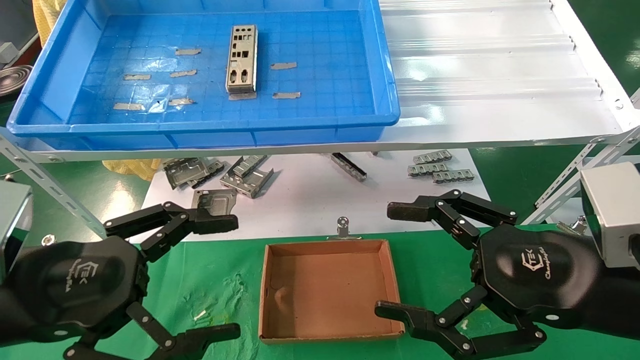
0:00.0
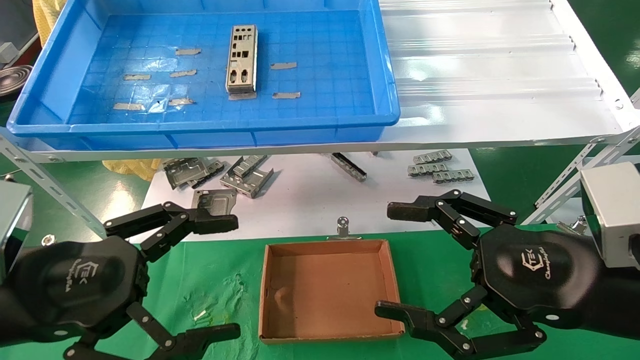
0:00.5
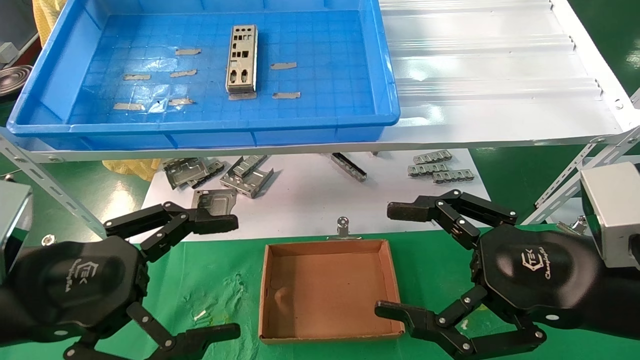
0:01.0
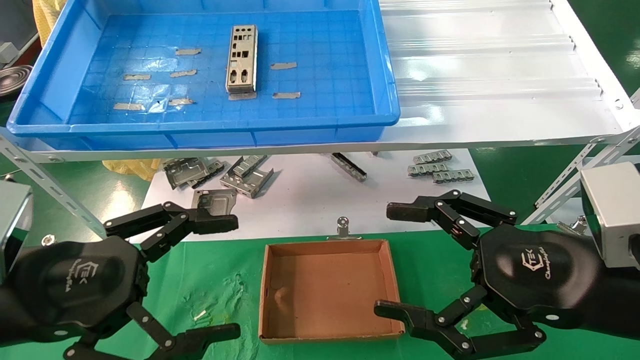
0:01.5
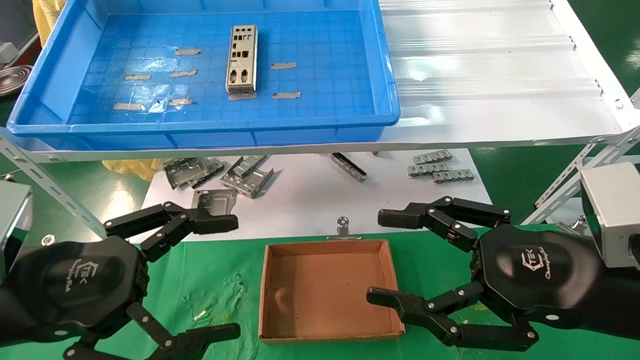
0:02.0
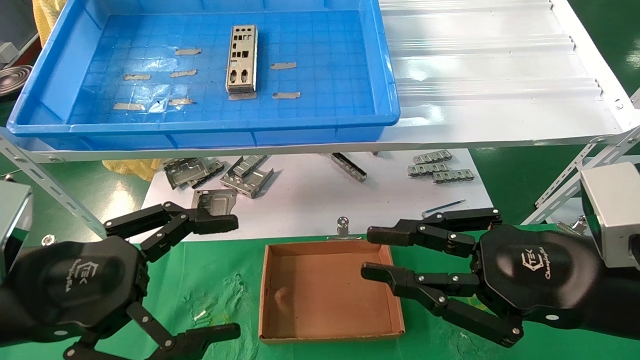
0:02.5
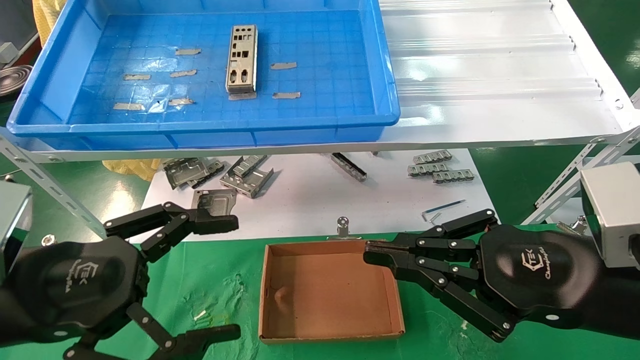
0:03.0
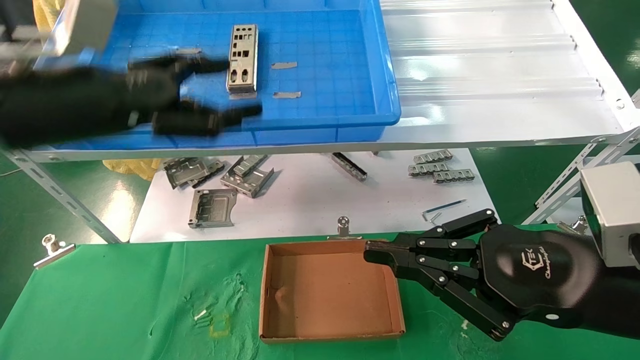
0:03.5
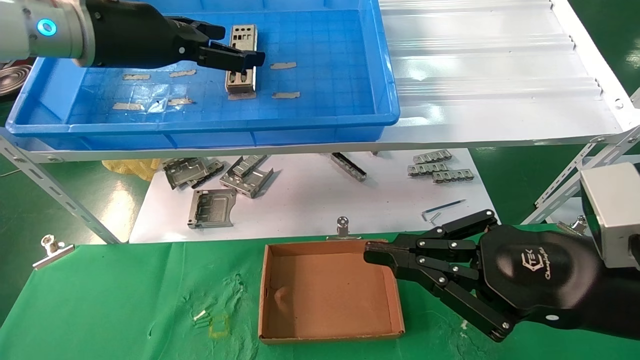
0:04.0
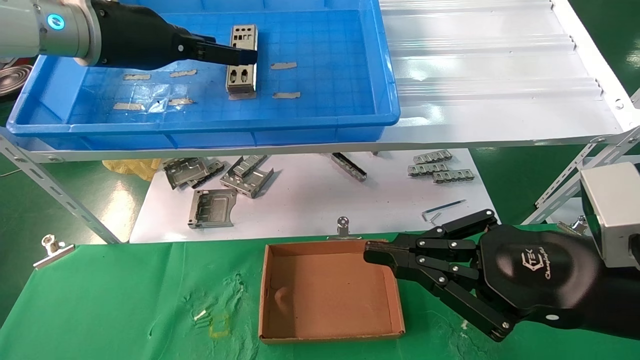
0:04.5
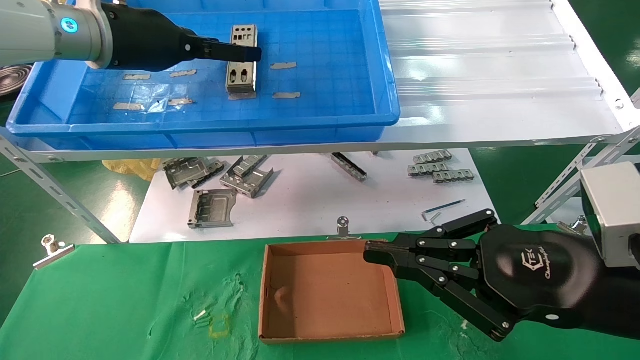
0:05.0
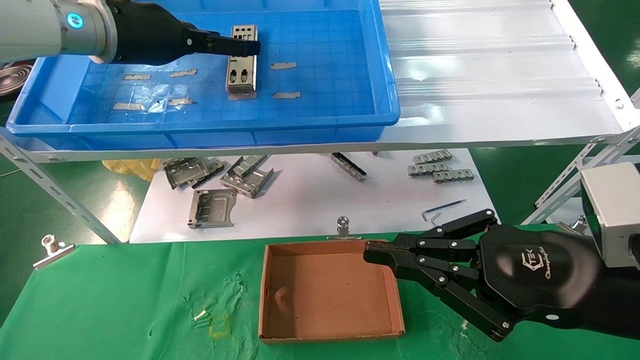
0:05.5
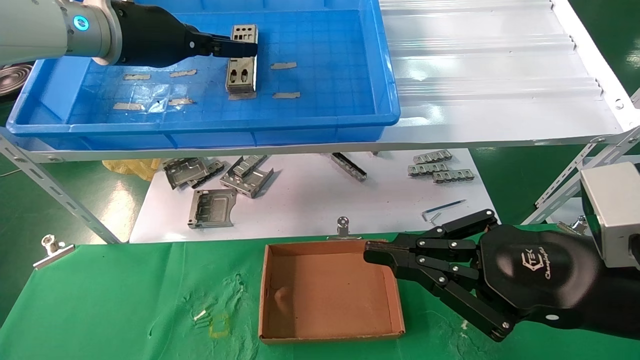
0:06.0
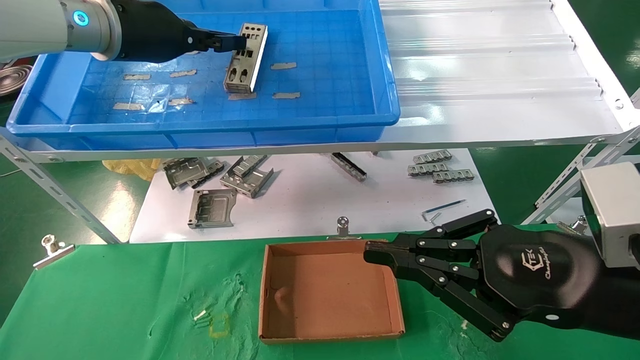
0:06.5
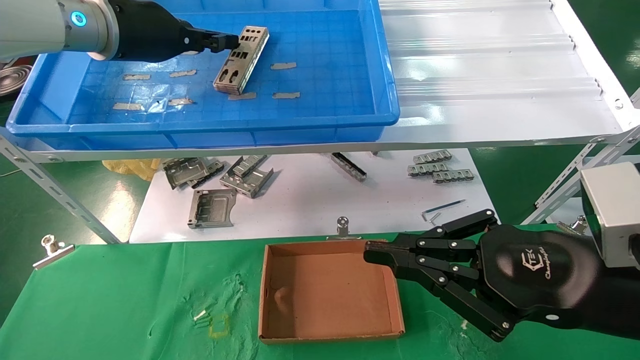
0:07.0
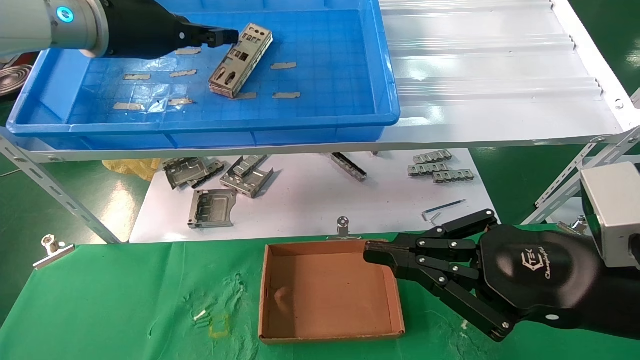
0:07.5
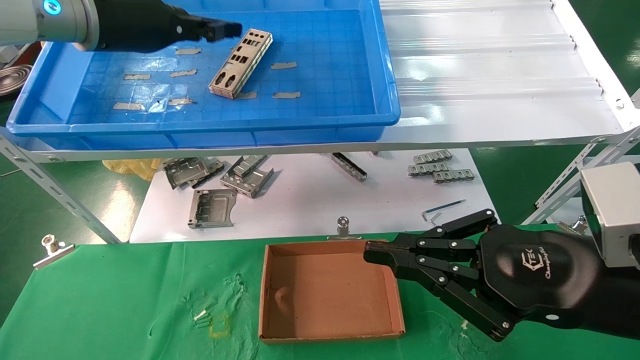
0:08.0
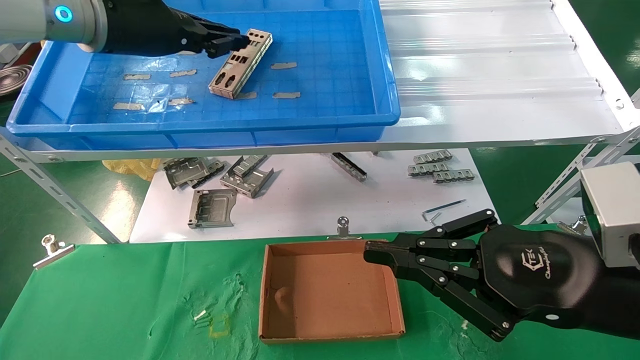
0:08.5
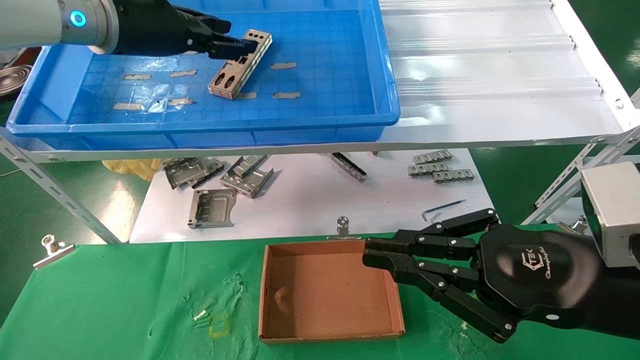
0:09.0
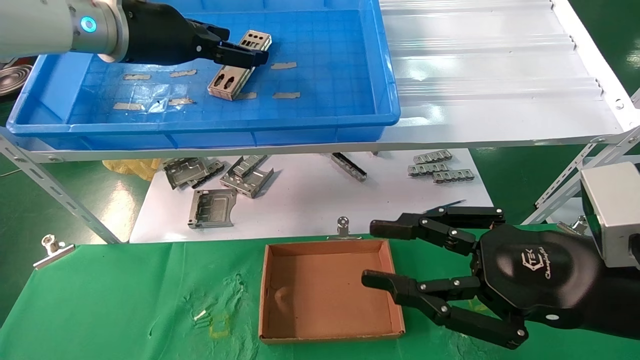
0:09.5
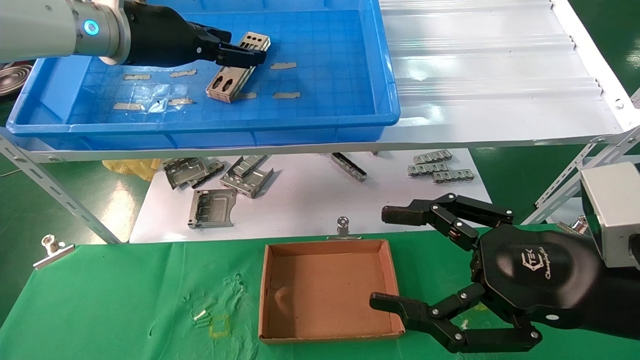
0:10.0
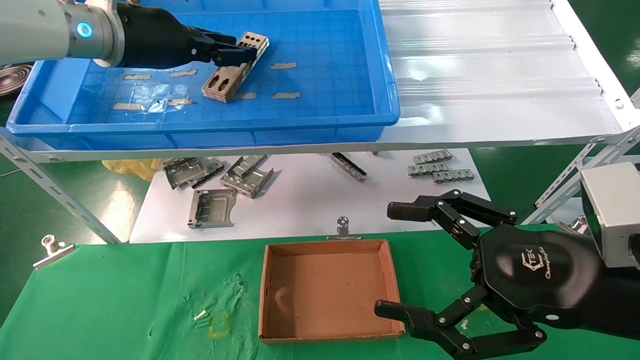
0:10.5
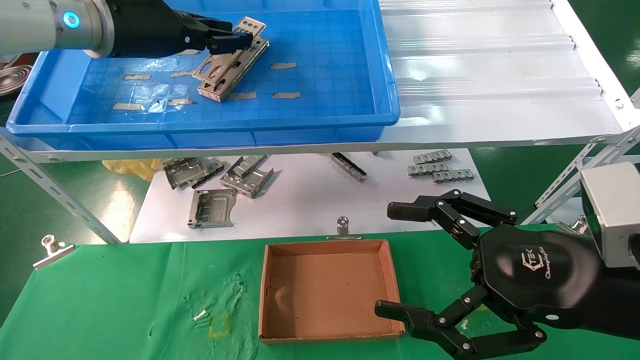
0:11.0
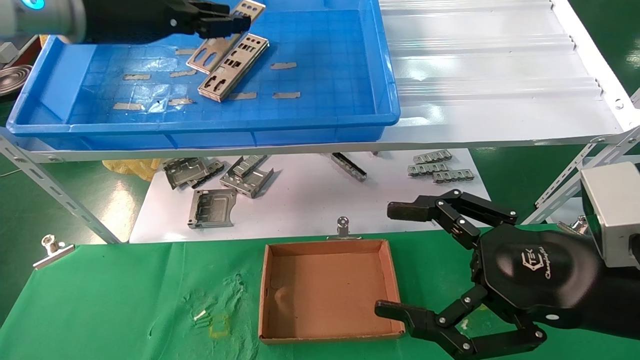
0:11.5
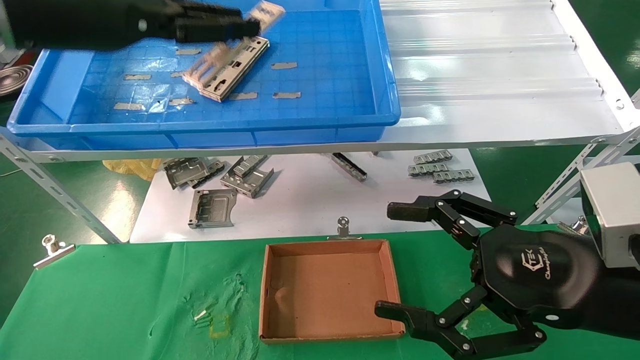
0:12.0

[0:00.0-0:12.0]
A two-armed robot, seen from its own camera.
Task of the whole recording: pick up the parts on the tray and put them in the cardboard box.
Step, 0:04.0 to 0:10.5: Pick up the IO bracket from the container box.
0:00.0 to 0:02.0: Both grippers stay about where they are.
0:02.0 to 0:04.0: The right gripper closes. The left gripper moves upward and forward, roughly 30 cm.
0:04.0 to 0:06.0: The left gripper closes up.
0:06.0 to 0:08.0: The left gripper closes up.
0:08.0 to 0:10.0: The left gripper opens up. The right gripper opens up.
0:10.0 to 0:12.0: The left gripper travels backward by approximately 10 cm, and closes.

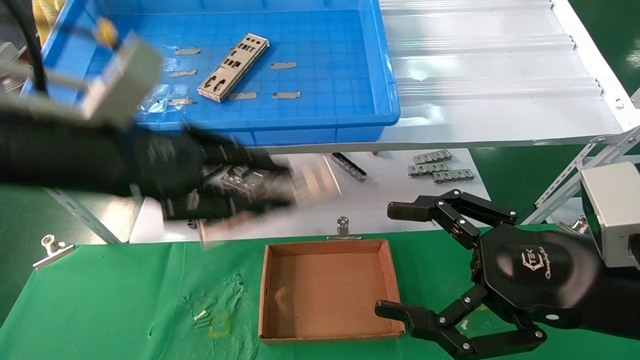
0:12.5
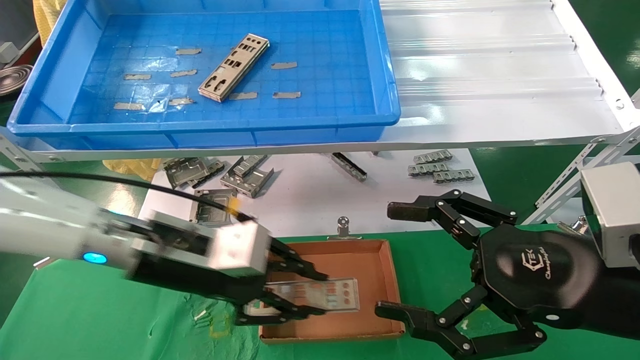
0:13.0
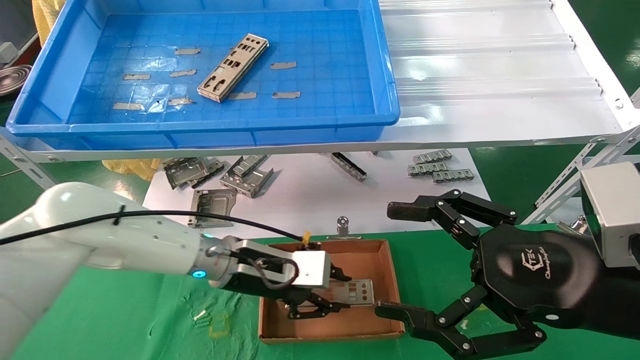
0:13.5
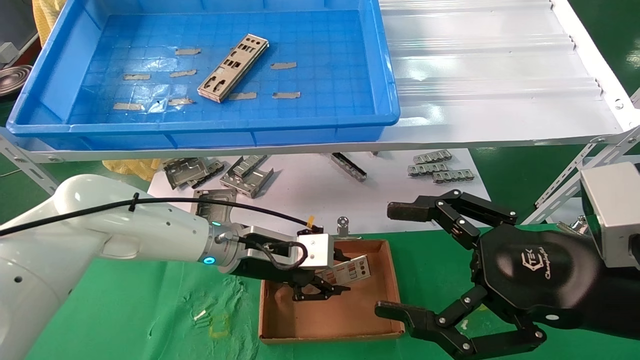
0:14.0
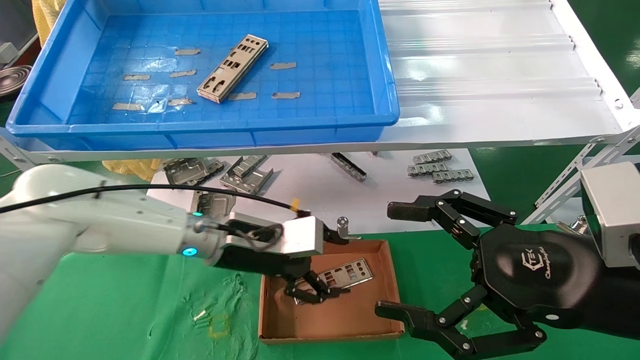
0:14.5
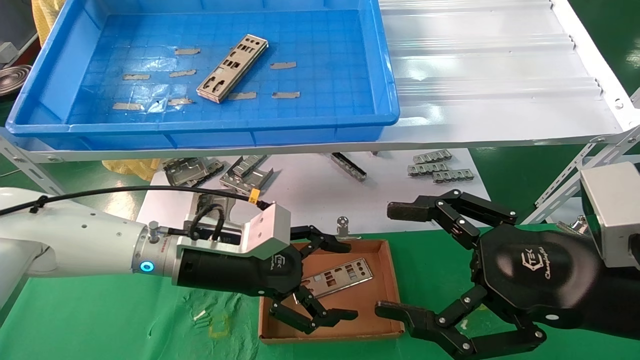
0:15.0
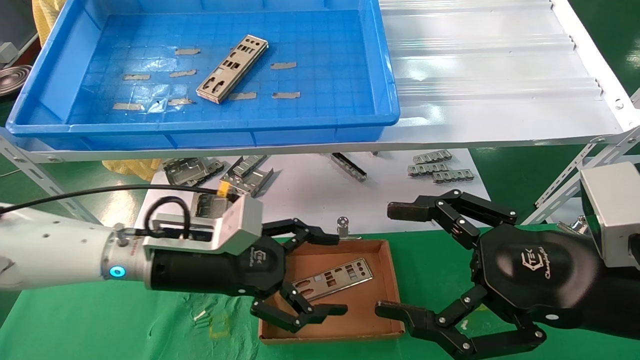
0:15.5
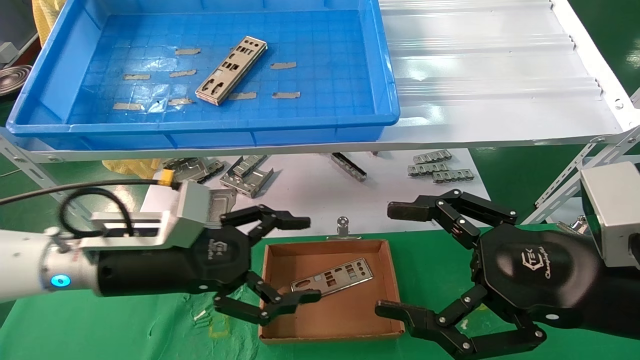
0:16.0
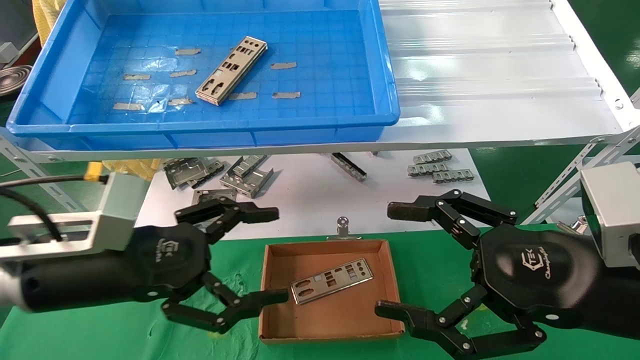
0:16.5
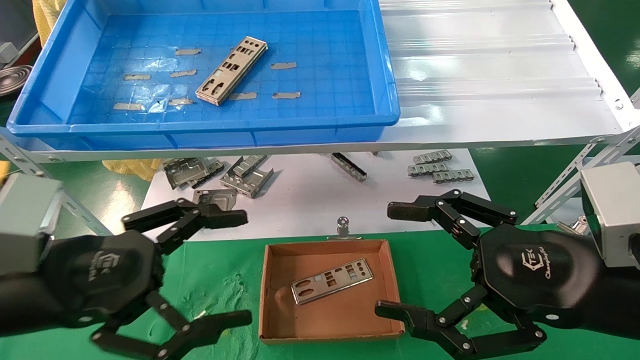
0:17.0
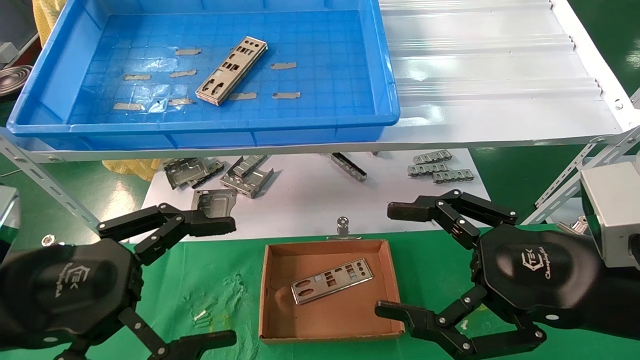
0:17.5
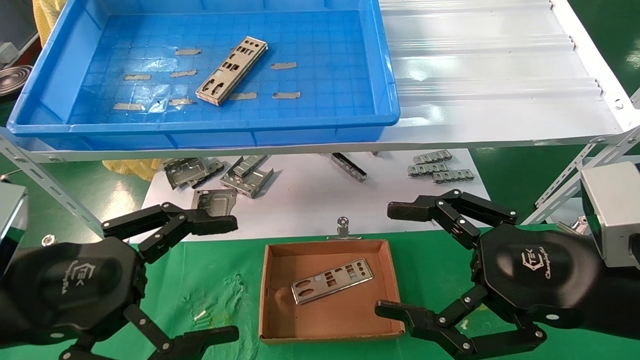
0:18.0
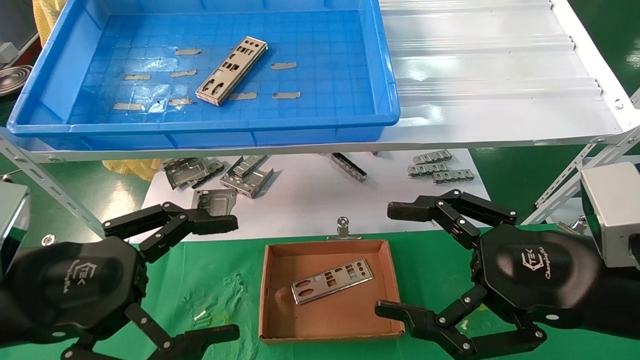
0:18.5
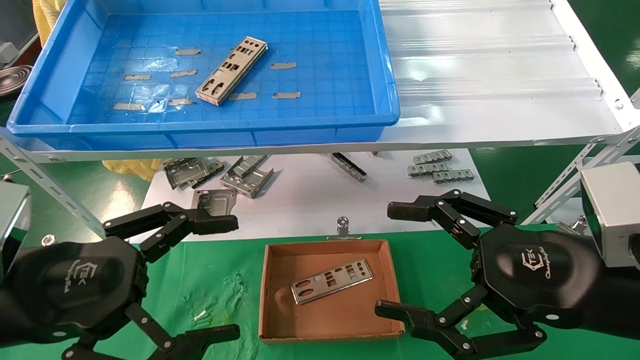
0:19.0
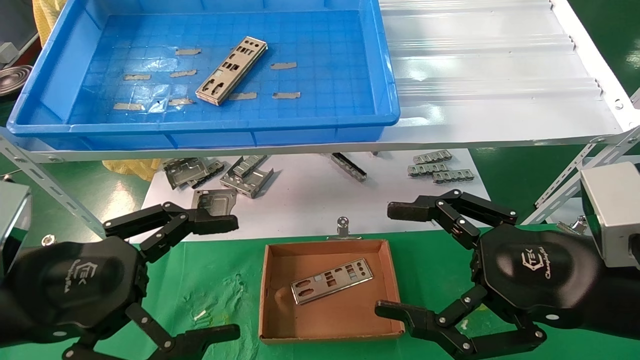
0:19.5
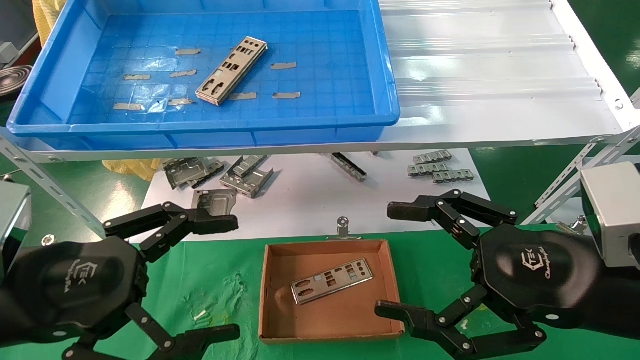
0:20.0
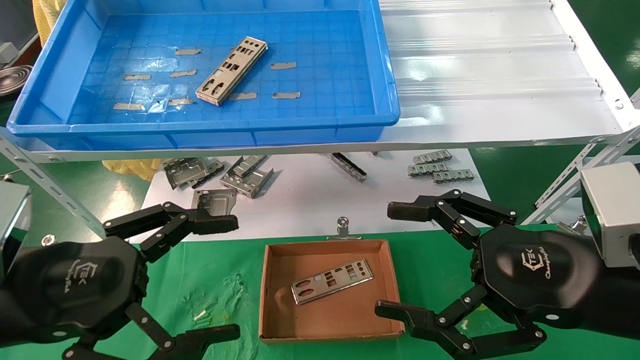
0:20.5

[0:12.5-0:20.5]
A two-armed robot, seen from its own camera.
Task of the whole recording: pick up the parts on the tray and put them in the cardboard box.
0:12.5 to 0:14.5: The left gripper goes approximately 25 cm downward, forward and to the right.
0:14.5 to 0:16.5: The left gripper moves backward and to the left, about 20 cm, and opens.
0:16.5 to 0:18.5: The left gripper moves backward, roughly 5 cm.
0:18.5 to 0:20.5: Both grippers stay about where they are.
